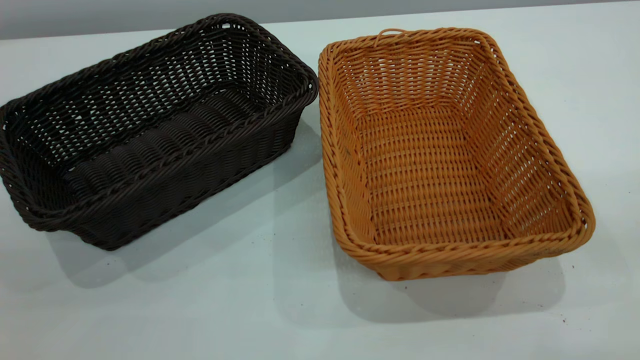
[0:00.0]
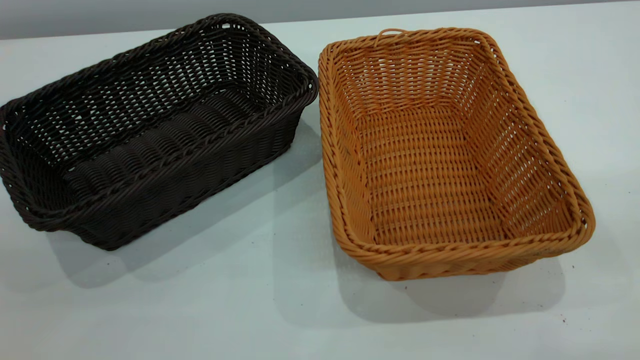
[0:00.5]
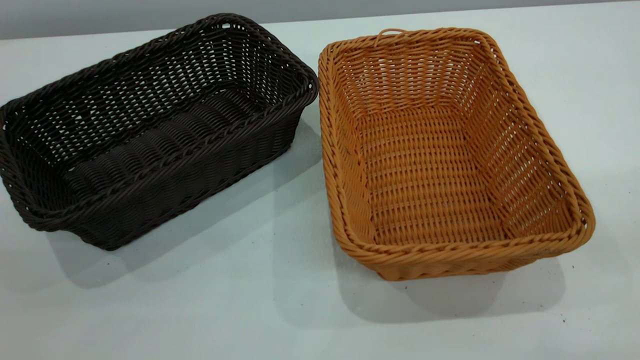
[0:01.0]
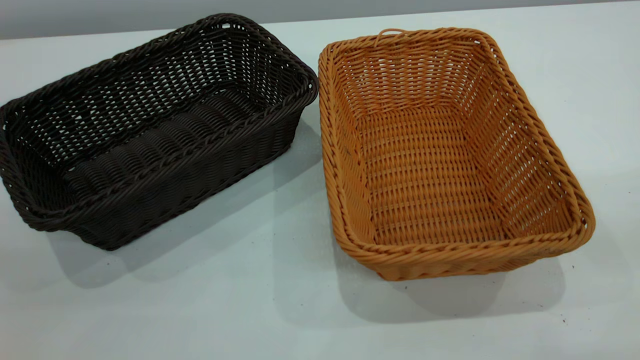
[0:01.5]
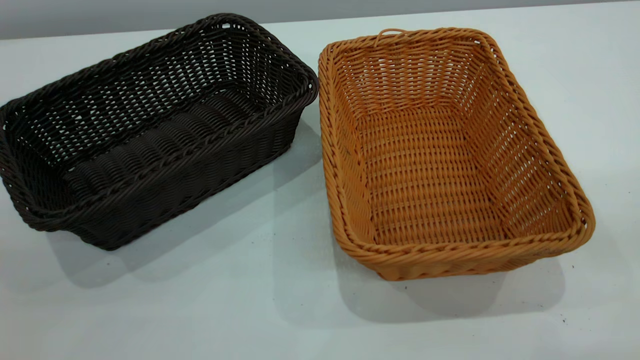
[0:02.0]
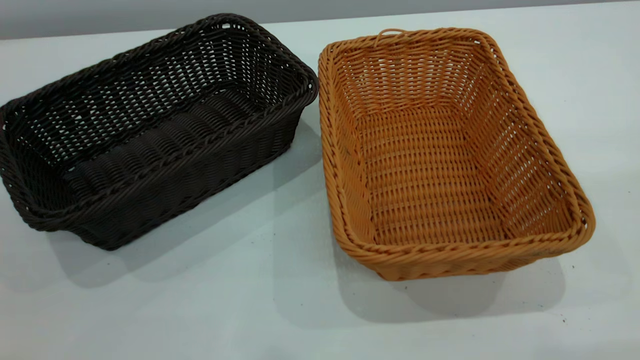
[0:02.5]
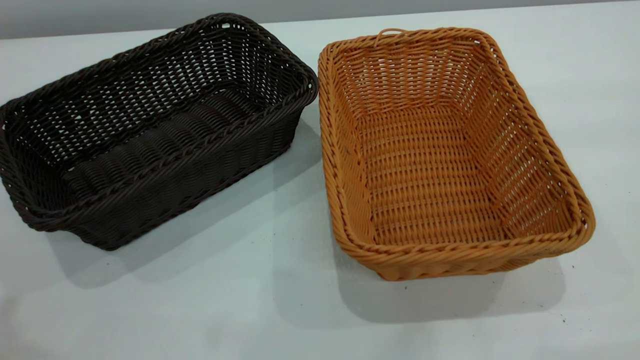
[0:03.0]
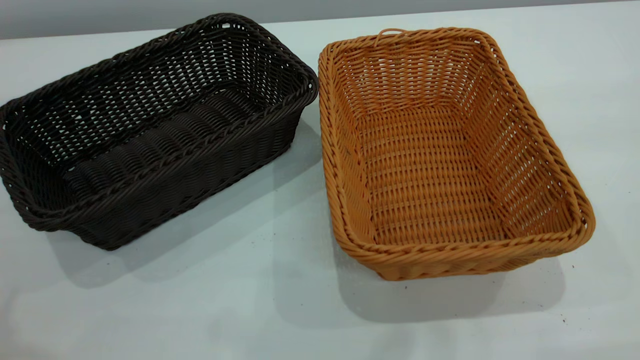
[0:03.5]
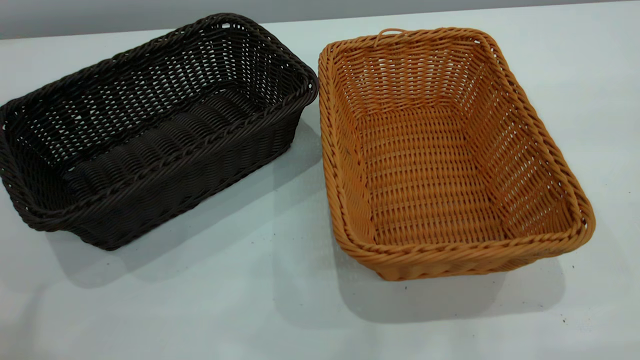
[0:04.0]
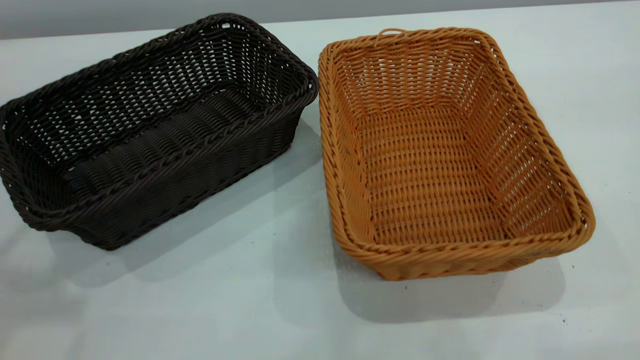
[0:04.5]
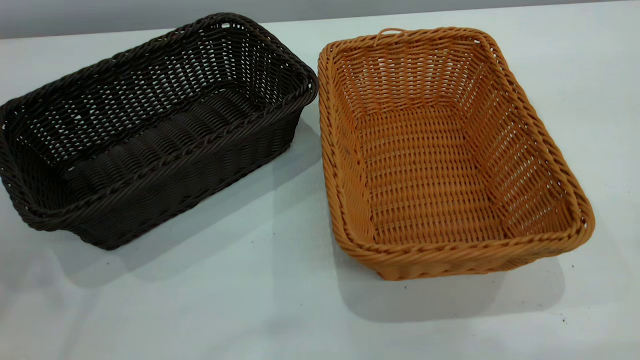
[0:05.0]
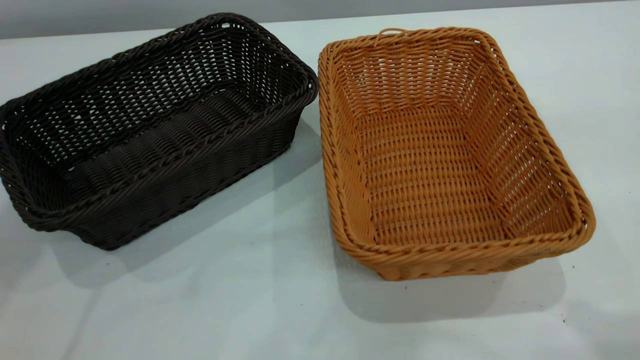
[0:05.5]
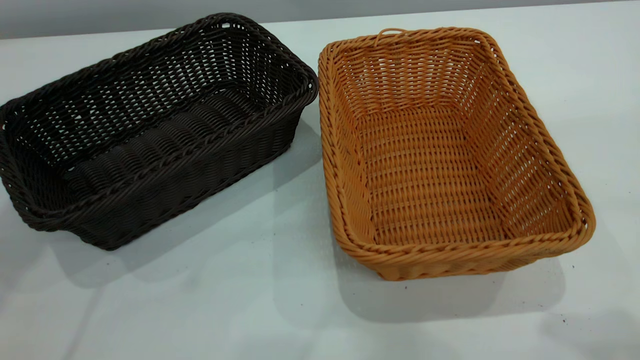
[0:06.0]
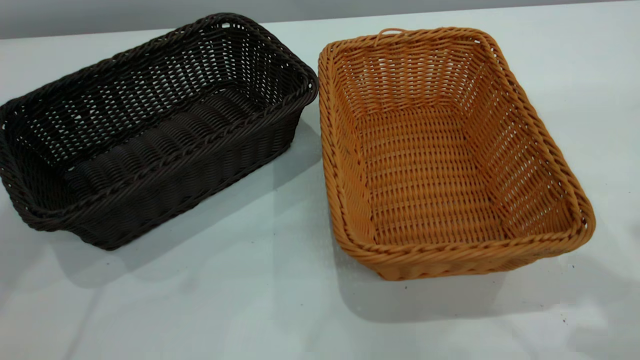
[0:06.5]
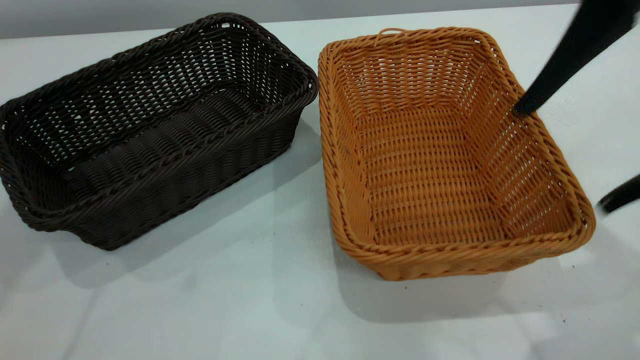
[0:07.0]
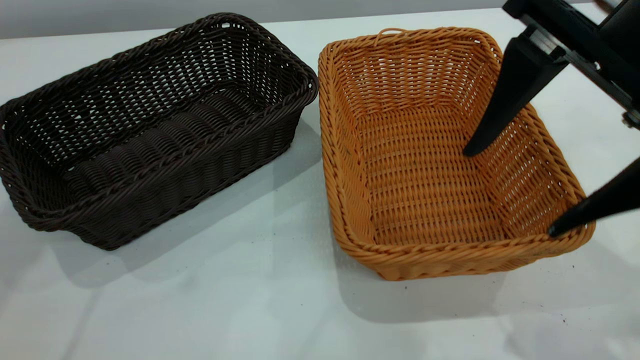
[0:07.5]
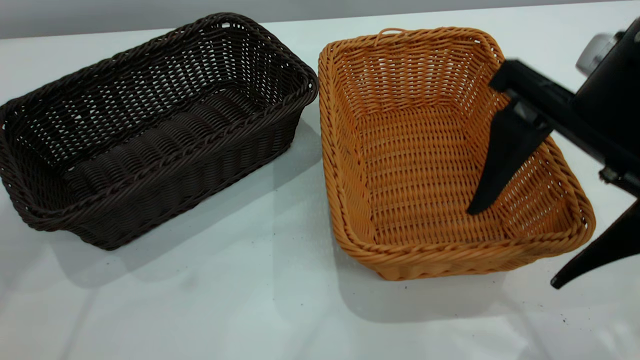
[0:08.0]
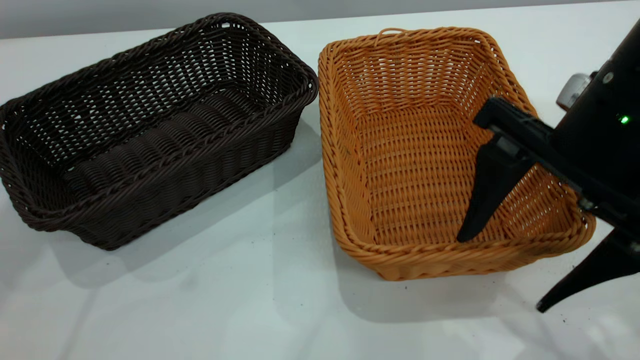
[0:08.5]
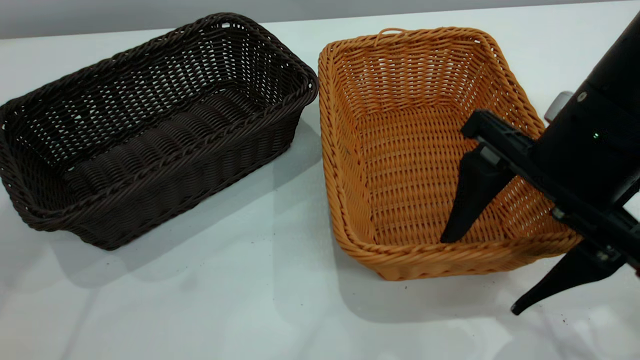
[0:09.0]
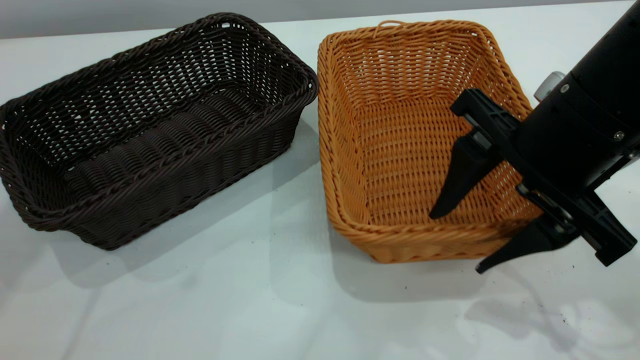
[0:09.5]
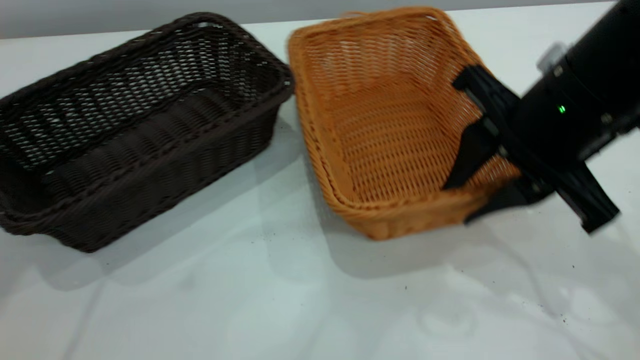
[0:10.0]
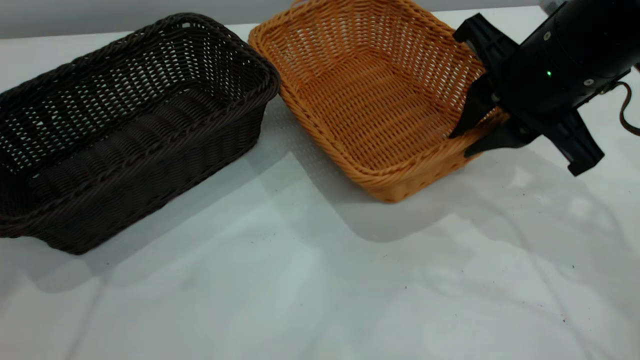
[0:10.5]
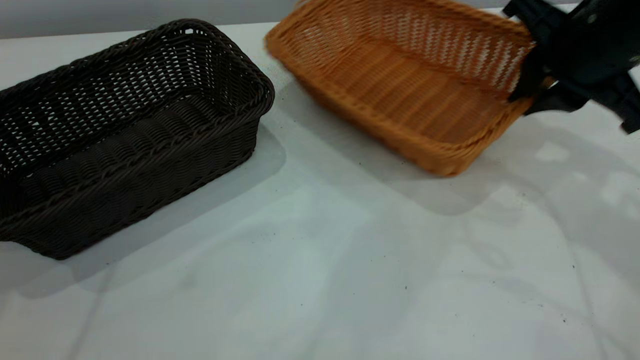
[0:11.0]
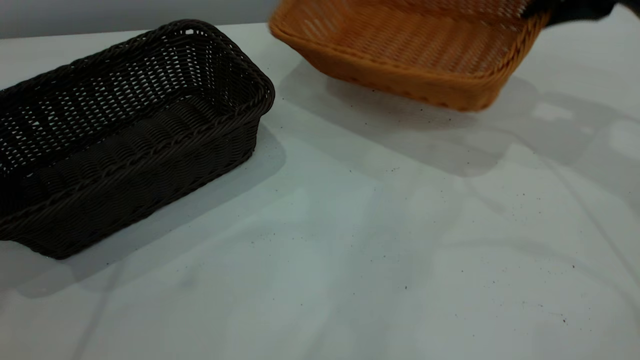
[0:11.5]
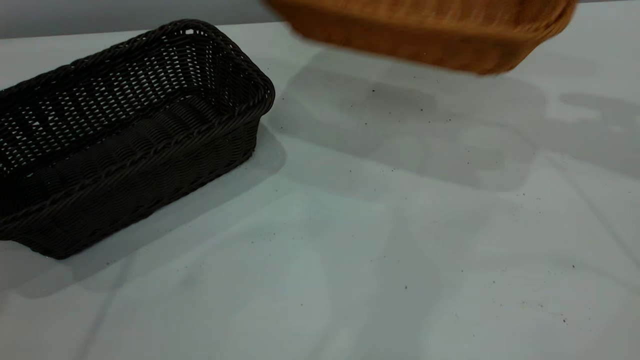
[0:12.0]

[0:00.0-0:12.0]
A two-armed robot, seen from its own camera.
Task of the whole recording: the left gripper grasp the black basket and place it in the center of the table, the right gripper grasp the brown basket and place it inside the black one.
Step, 0:00.0 to 0:11.0: Pick up the light basket with the right gripper.
0:00.0 to 0:02.0: Both grippers stay about where they are.
0:04.0 to 0:06.0: The left gripper heads forward, covering roughly 25 cm.
0:06.0 to 0:08.0: The right gripper moves downward, forward and to the left, roughly 20 cm.
0:08.0 to 0:10.0: The right gripper changes place by roughly 5 cm, and closes up.
0:10.0 to 0:12.0: The right gripper moves to the right, upward and forward, some 20 cm.

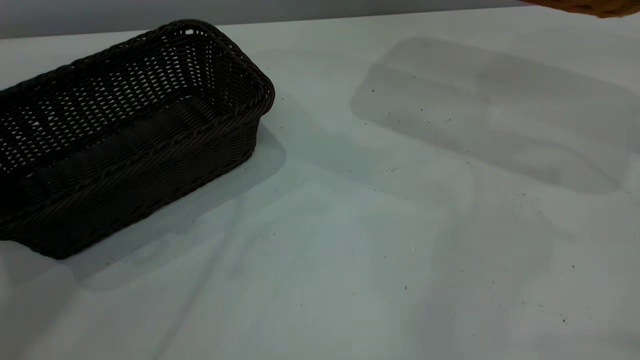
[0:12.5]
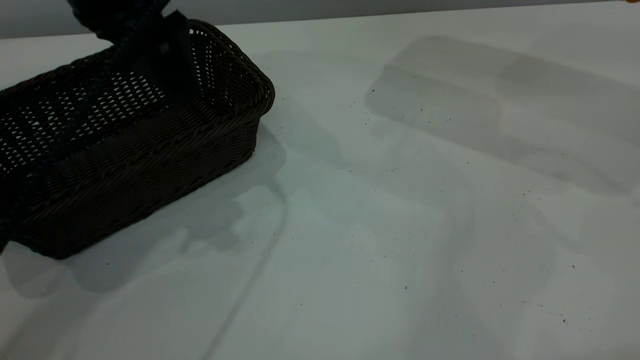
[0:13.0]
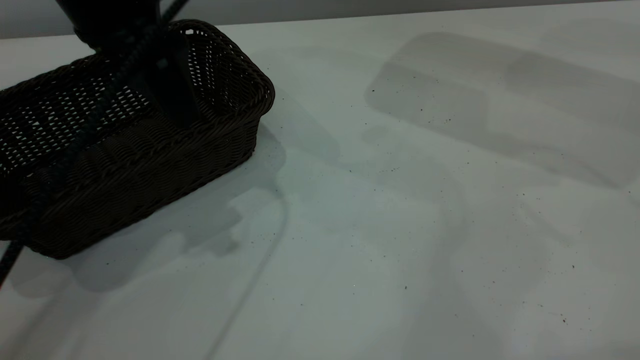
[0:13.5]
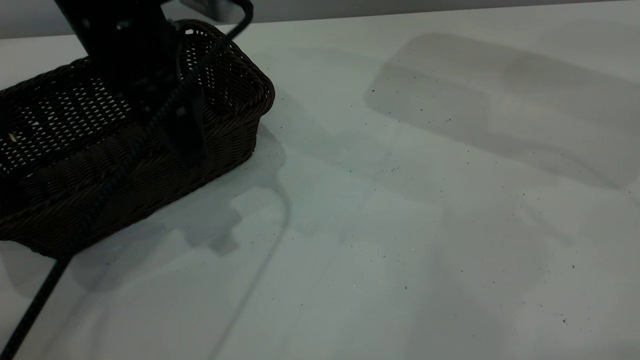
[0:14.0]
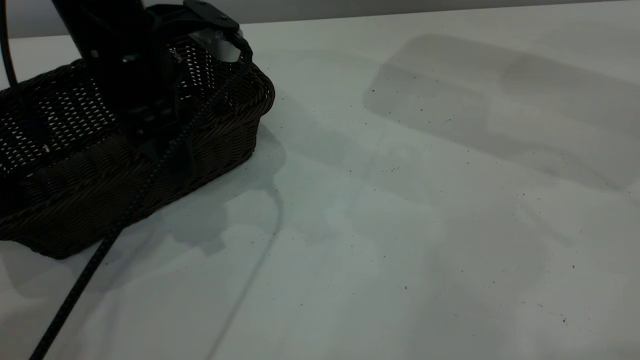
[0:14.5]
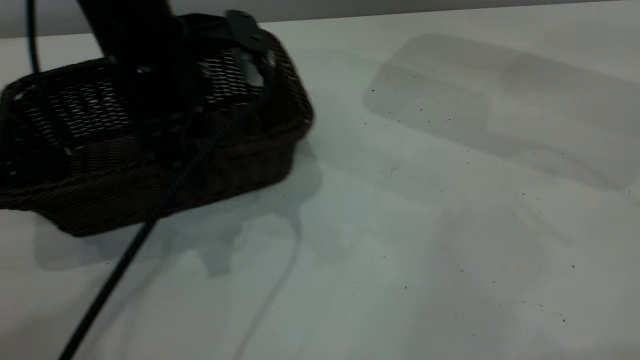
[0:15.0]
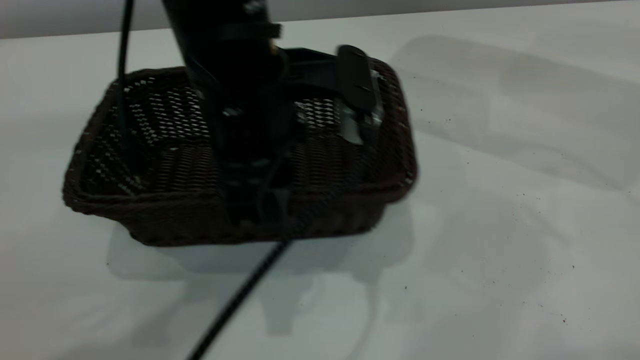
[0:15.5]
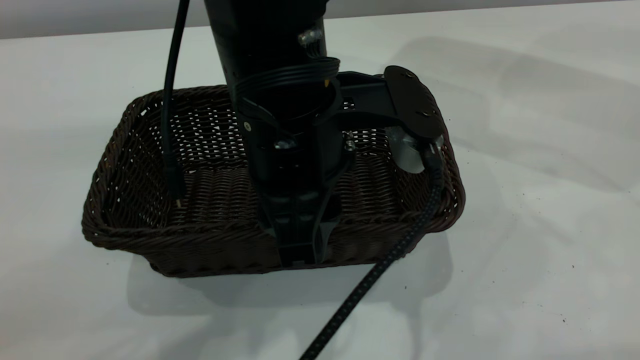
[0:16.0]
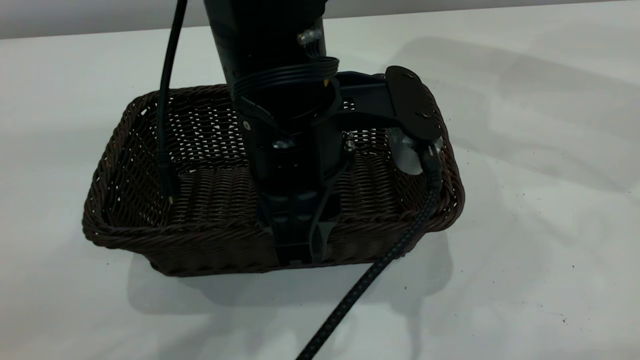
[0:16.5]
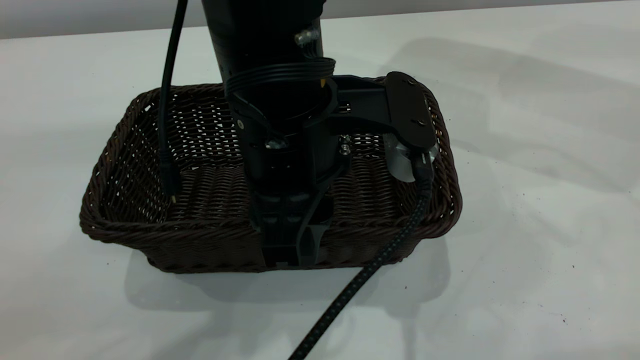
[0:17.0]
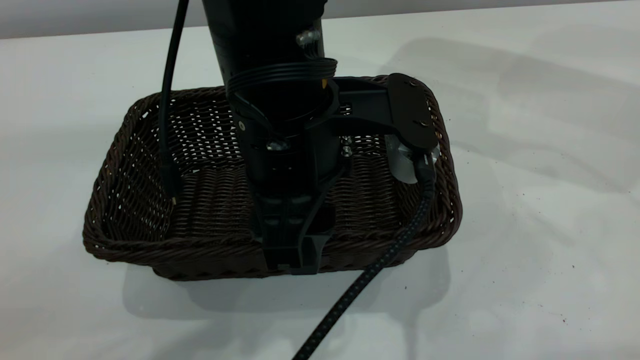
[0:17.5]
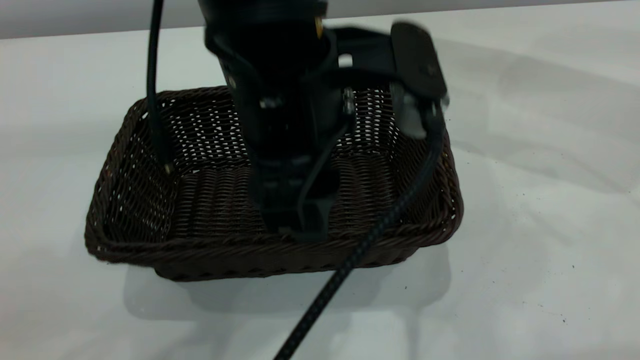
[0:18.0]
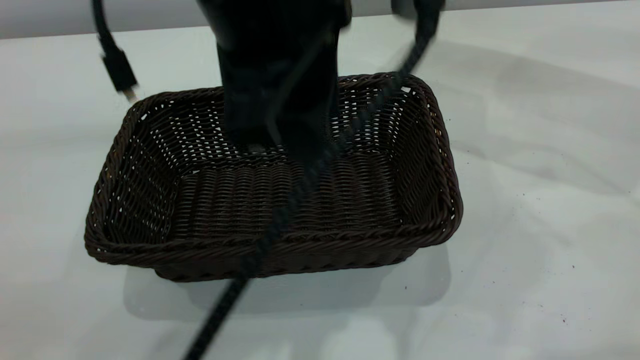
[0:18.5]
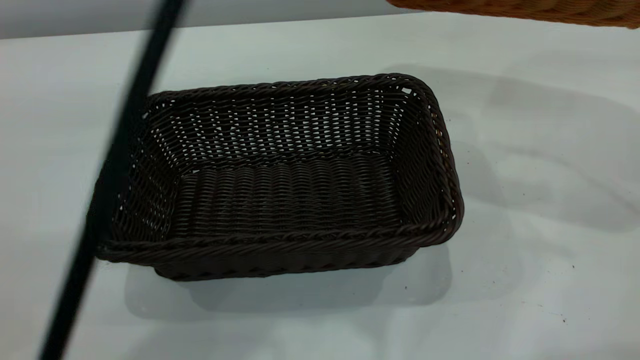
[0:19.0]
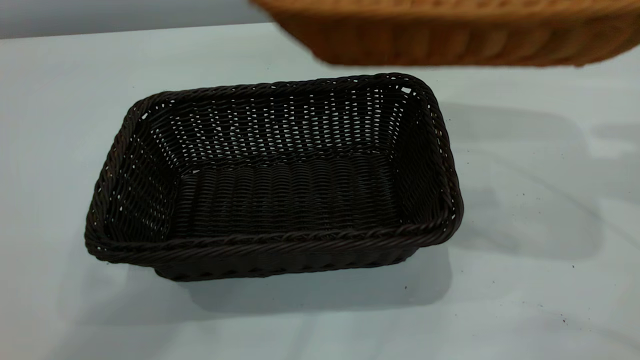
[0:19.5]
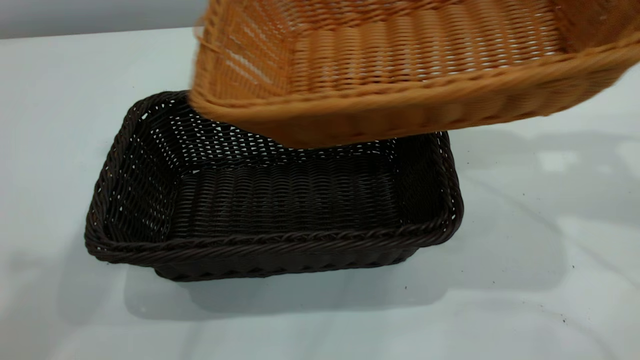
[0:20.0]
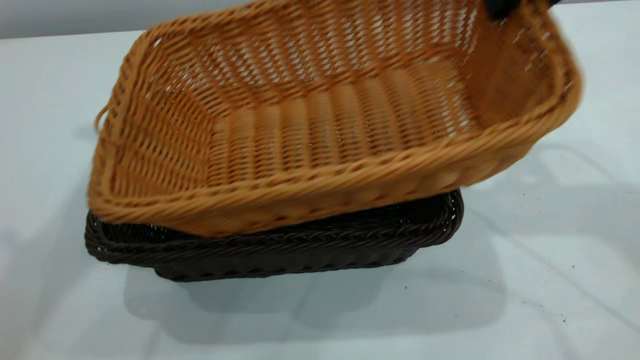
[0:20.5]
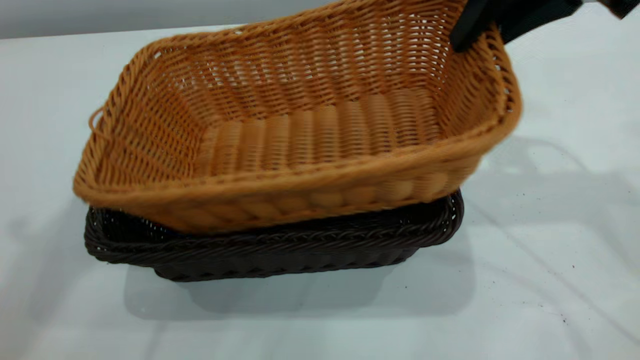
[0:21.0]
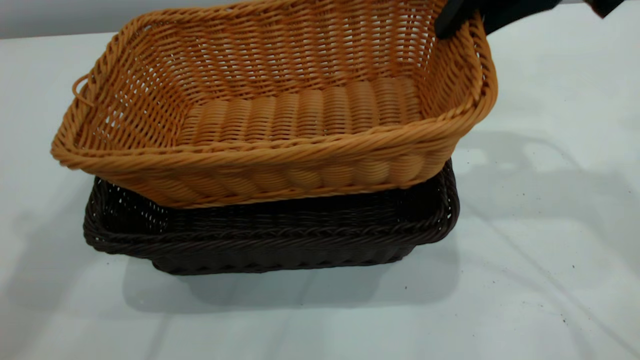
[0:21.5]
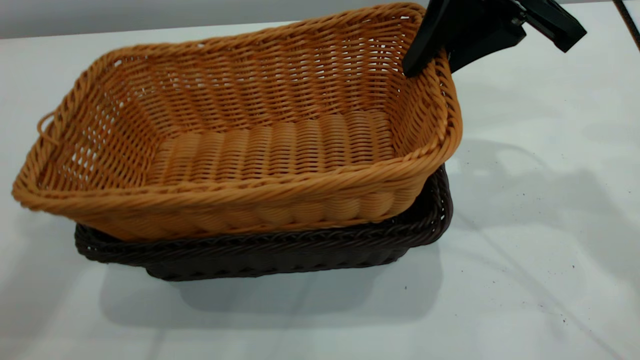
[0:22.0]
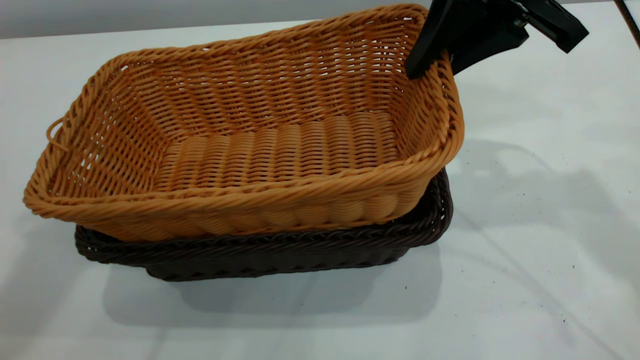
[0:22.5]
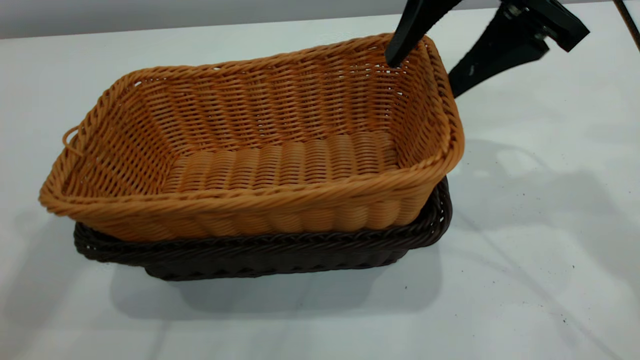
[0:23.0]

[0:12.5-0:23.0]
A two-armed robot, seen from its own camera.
Task of the whole recording: the left gripper grasp the black basket and place it in the center of the table, the right gripper grasp the brown basket and place it inside the black one.
Step, 0:12.5 to 0:18.0: Move the dark basket to the center of view.
0:12.5 to 0:14.5: The left gripper shifts roughly 15 cm downward, and closes.
0:14.5 to 0:16.5: The left gripper moves to the right and backward, approximately 15 cm.
0:16.5 to 0:19.0: The left gripper heads upward, covering roughly 20 cm, and opens and closes again.
0:19.0 to 0:21.0: The left gripper travels to the left, forward and upward by approximately 20 cm, and closes. Meanwhile the right gripper is displaced to the left by some 20 cm.
0:21.0 to 0:23.0: The right gripper opens.
